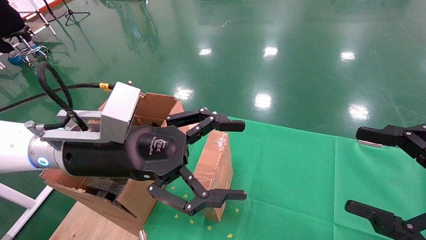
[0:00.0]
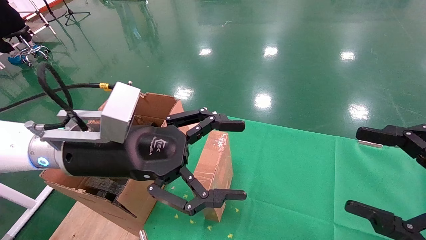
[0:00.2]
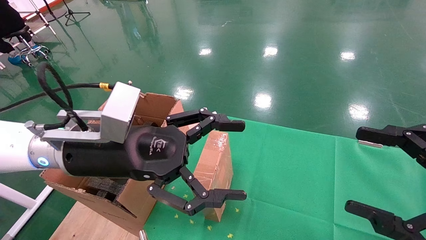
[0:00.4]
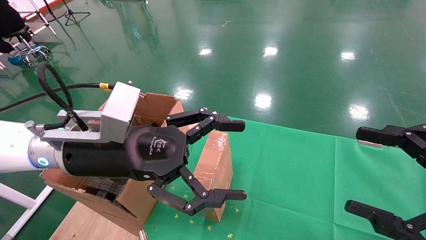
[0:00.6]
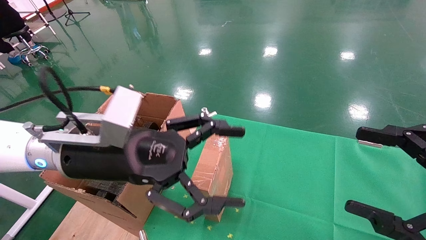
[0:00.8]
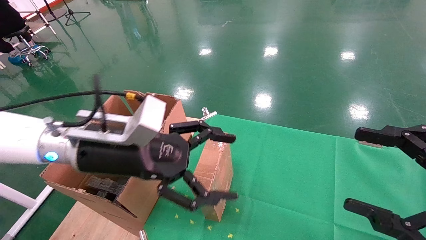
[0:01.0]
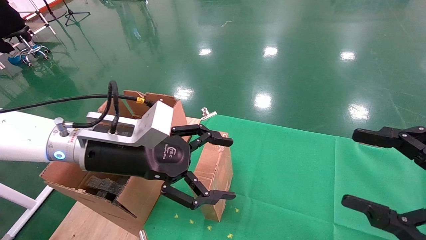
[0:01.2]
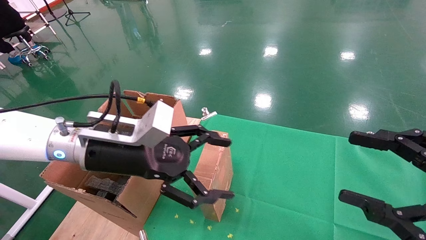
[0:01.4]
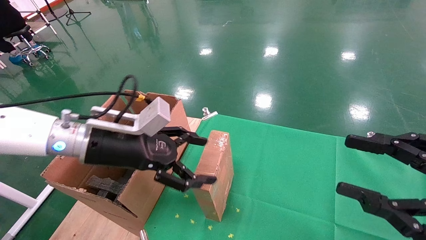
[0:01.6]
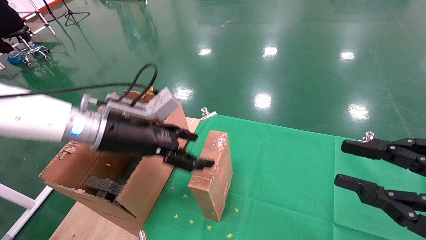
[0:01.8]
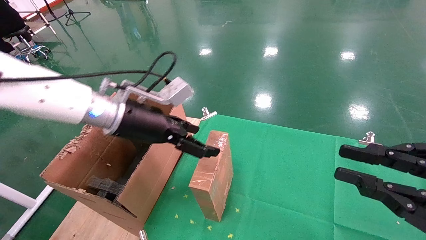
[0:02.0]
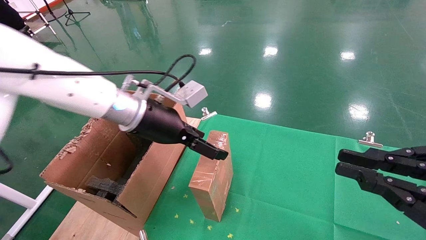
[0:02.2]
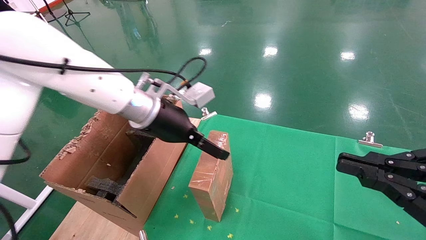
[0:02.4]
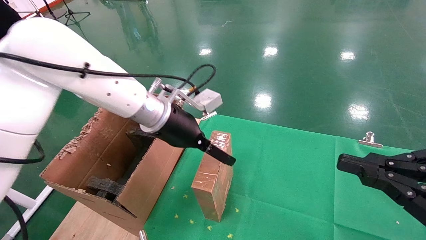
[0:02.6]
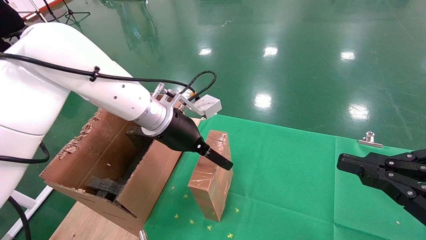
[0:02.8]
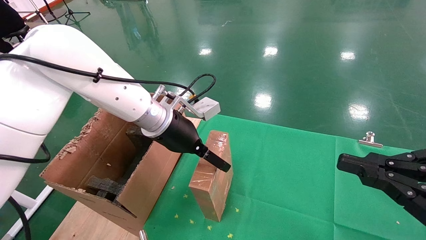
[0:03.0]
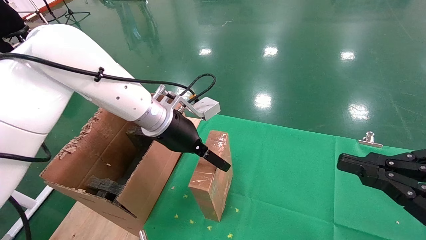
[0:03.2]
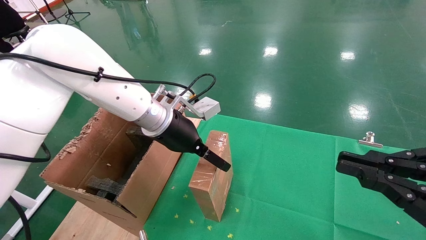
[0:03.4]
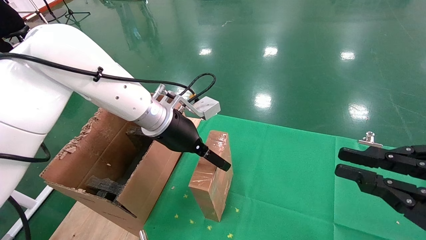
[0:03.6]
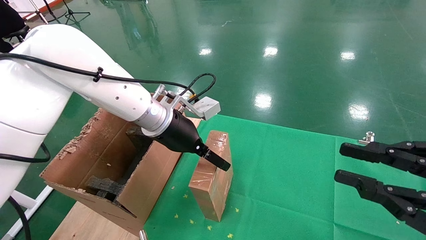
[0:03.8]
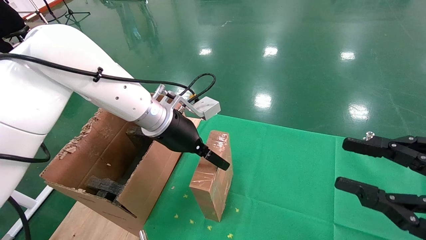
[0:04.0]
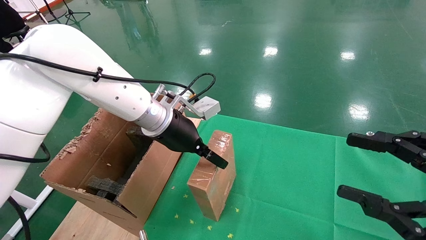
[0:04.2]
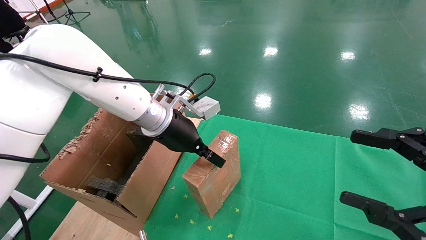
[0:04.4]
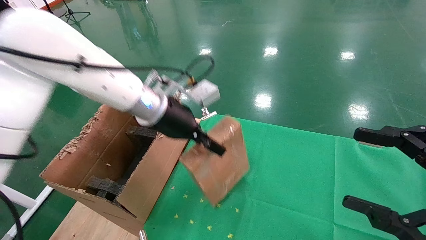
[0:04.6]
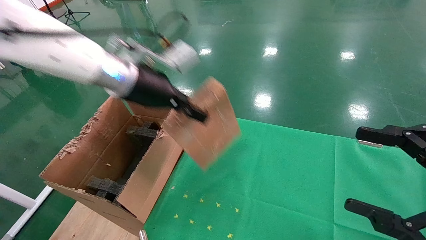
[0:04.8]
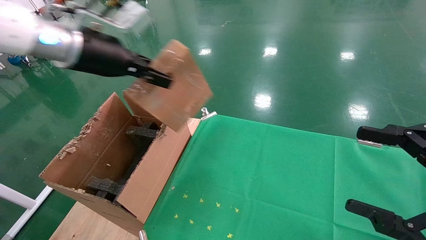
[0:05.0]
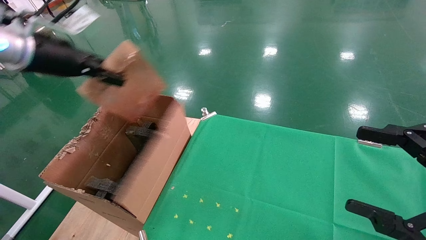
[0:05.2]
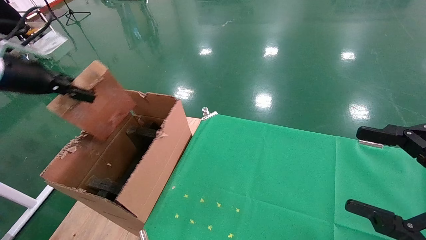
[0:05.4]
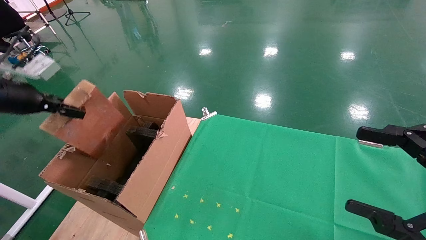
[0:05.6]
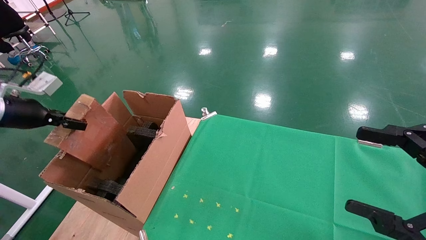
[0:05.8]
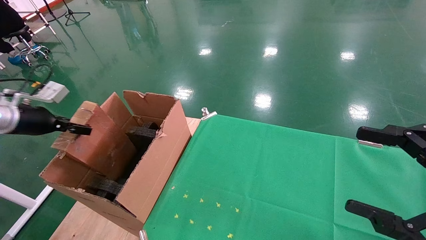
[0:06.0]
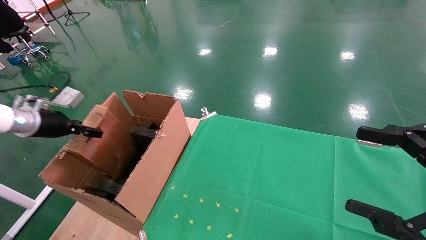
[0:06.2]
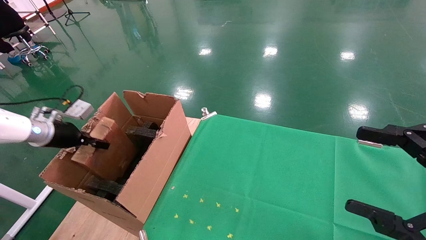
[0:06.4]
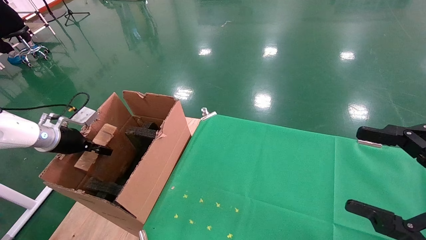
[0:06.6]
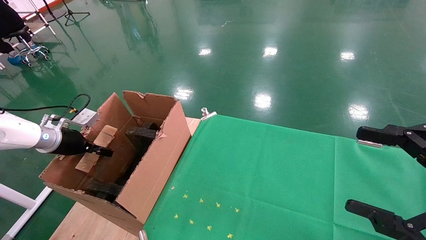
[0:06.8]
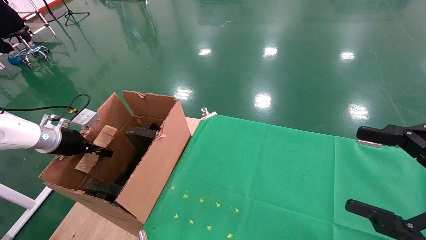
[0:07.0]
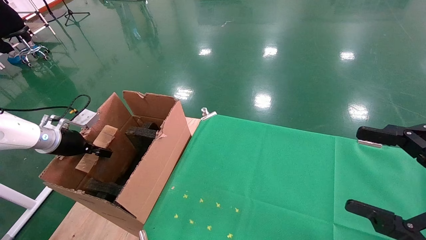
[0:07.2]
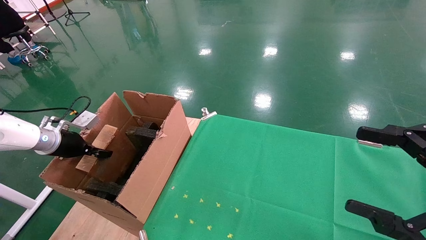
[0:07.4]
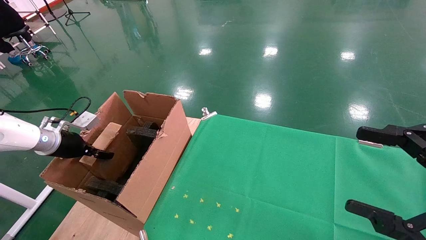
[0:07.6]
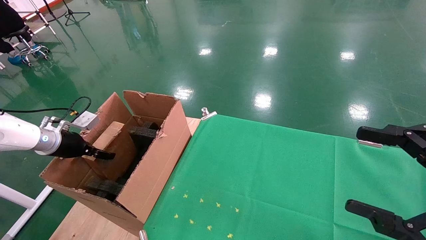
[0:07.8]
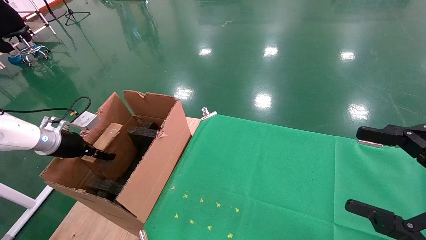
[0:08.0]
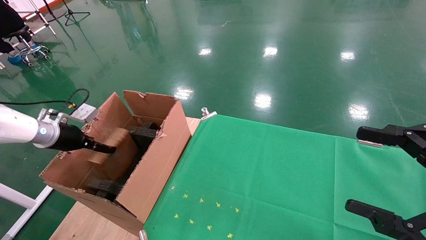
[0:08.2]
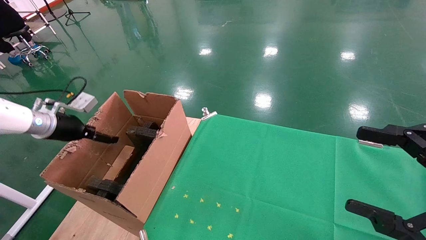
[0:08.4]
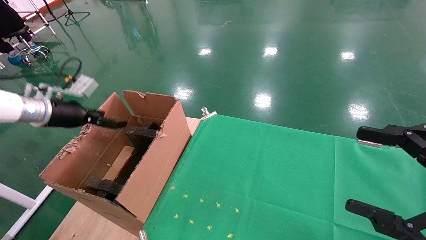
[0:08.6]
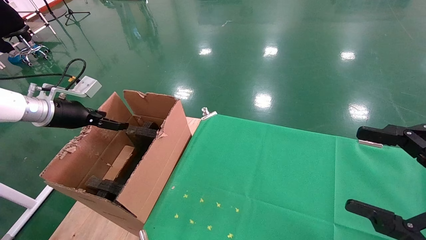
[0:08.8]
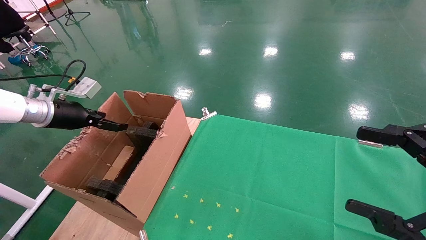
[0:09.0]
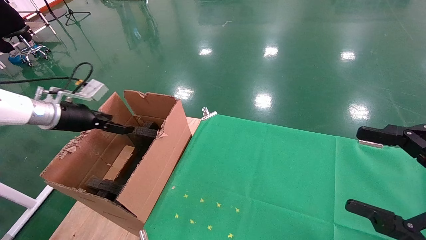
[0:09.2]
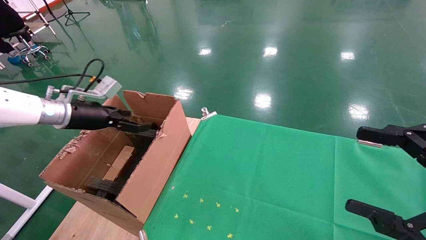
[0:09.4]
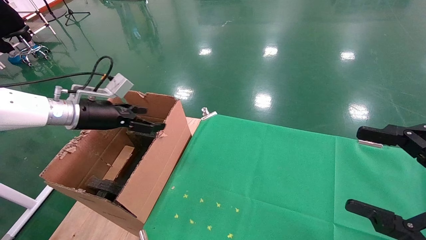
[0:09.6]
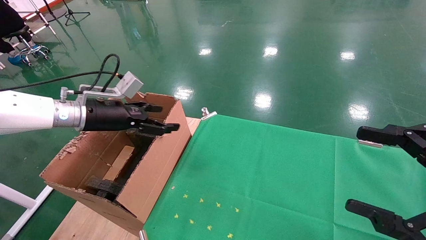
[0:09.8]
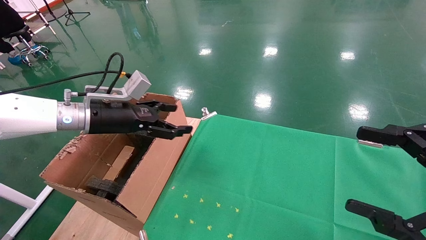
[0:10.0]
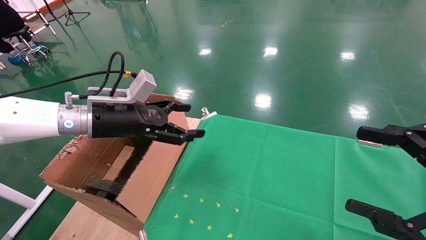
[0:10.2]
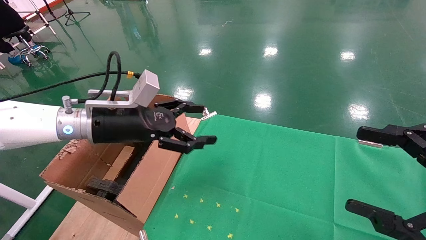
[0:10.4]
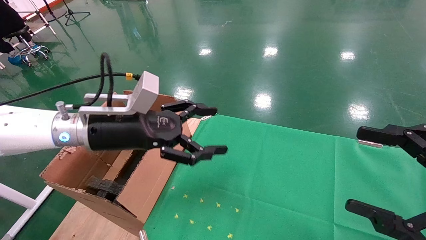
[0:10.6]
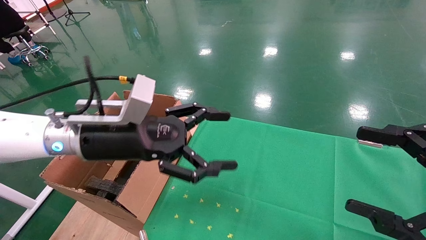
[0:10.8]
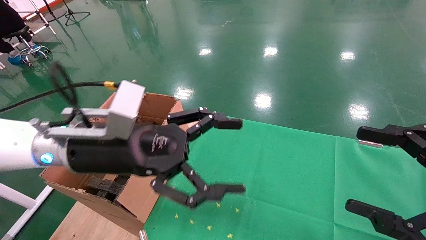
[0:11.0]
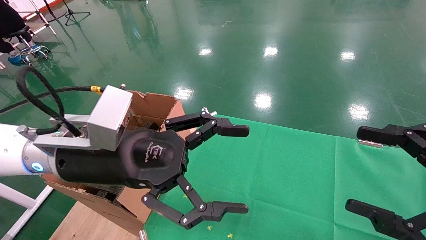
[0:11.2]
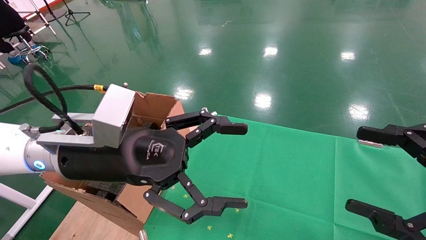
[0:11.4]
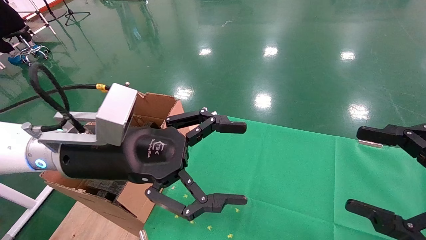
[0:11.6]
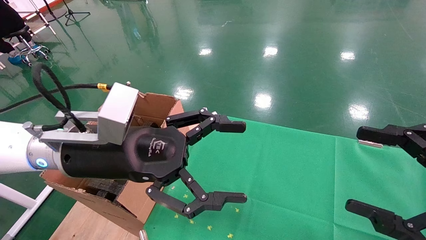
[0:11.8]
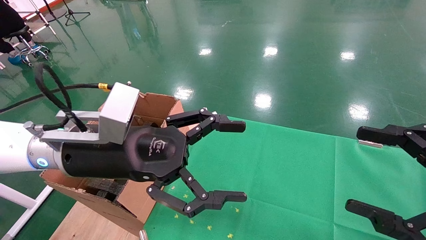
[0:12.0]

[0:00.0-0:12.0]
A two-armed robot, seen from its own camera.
Task of the whole recording: using a robotic arm to pick up a cardboard box and palace it the carton.
Step, 0:01.0 to 0:04.4: Pick up the mouse and the power cord paper box.
Step, 0:04.6 to 0:08.6: Place the mouse and the power cord paper box into the container.
0:00.0 to 0:01.6: The left gripper heads forward, covering some 5 cm.
0:01.6 to 0:03.0: The right gripper closes its fingers. The left gripper heads forward and to the right, covering approximately 10 cm.
0:03.0 to 0:04.4: The right gripper opens; the left gripper closes.
0:04.4 to 0:06.0: The left gripper heads to the left, covering approximately 35 cm, and closes up.
0:06.0 to 0:07.6: The left gripper heads downward, covering some 10 cm.
0:07.6 to 0:09.0: The left gripper shifts about 10 cm upward, and opens.
0:09.0 to 0:10.4: The left gripper travels to the right by approximately 20 cm.
0:10.4 to 0:12.0: The left gripper goes approximately 10 cm backward and to the right.

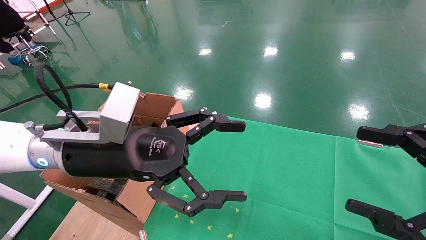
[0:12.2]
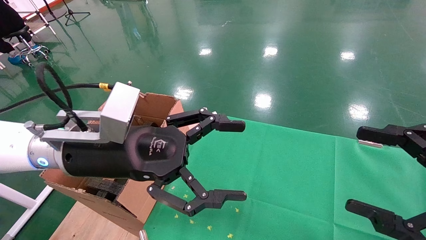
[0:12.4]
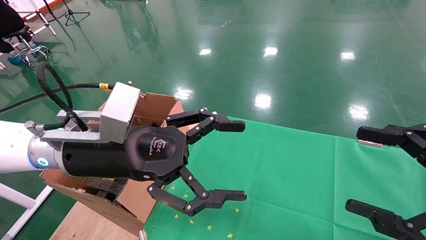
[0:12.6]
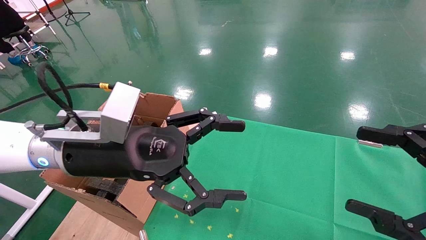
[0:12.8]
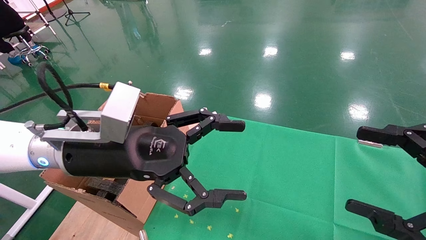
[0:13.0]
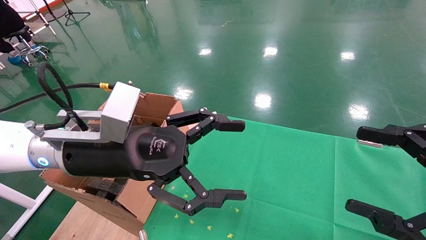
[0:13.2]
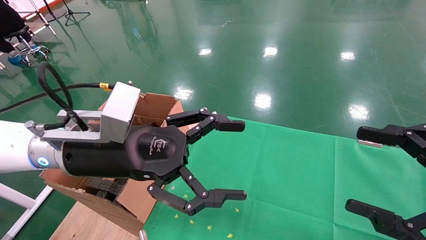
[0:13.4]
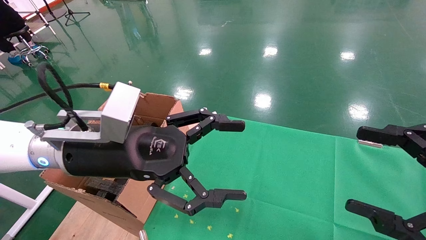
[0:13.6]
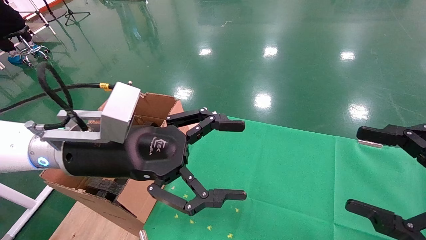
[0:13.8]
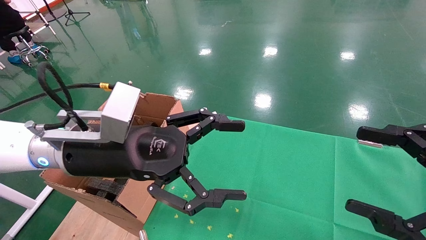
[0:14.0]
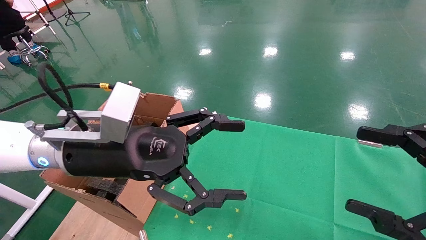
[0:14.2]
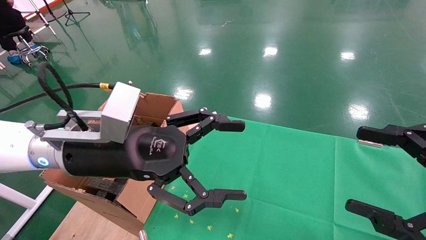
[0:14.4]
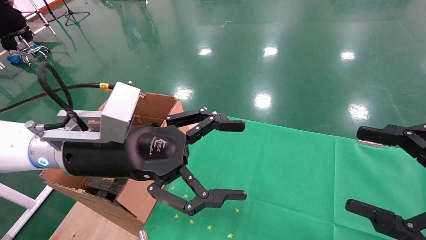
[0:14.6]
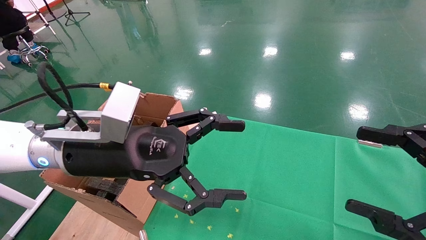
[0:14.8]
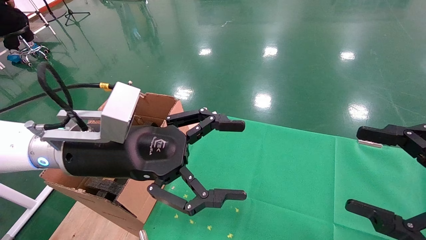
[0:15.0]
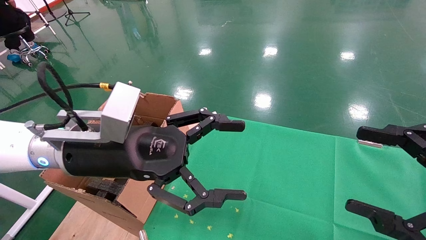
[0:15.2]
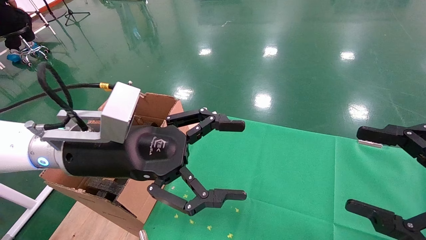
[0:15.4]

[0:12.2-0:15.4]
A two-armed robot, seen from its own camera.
Task of the whole recording: using a robotic arm to pick up a cardboard box and palace it the carton.
0:12.2 to 0:15.4: The two grippers keep their place.
